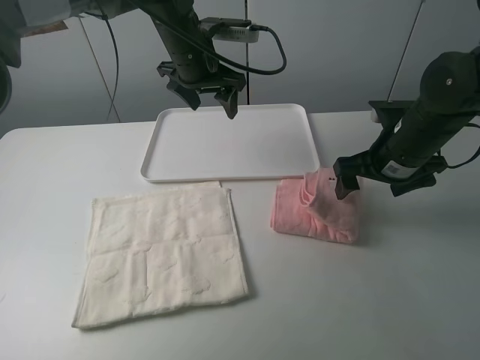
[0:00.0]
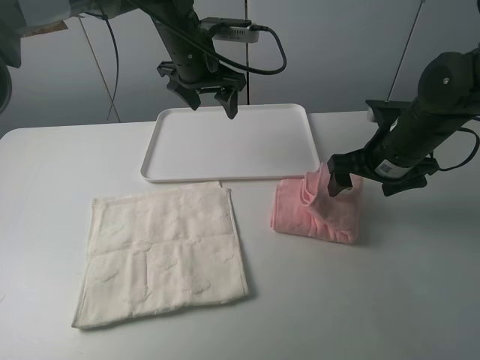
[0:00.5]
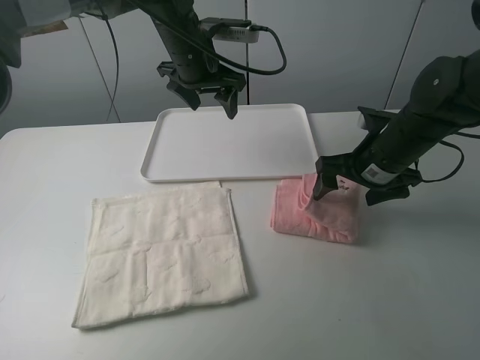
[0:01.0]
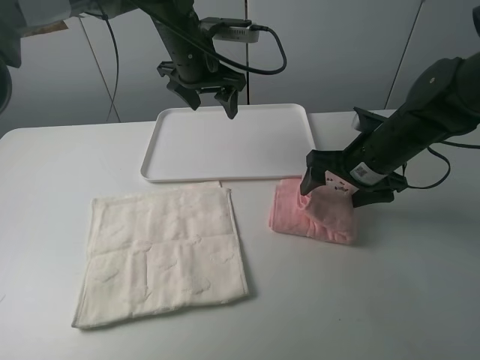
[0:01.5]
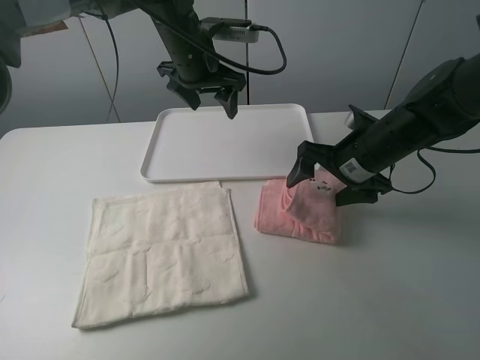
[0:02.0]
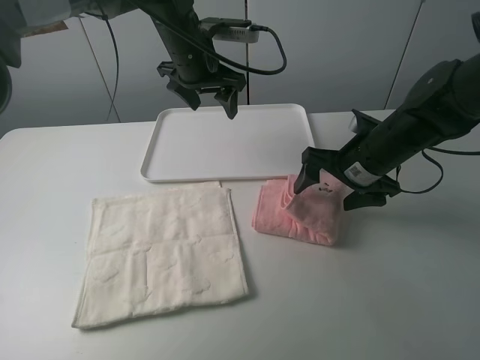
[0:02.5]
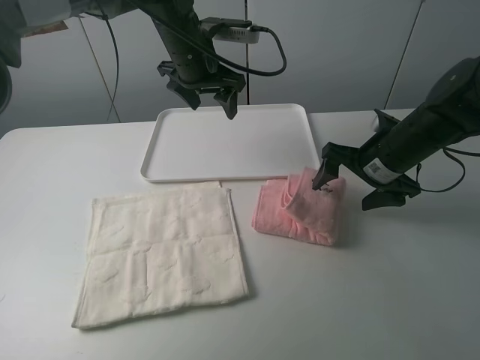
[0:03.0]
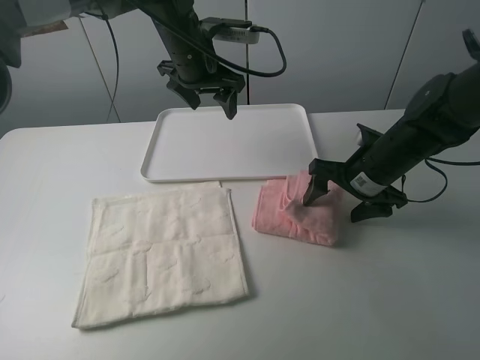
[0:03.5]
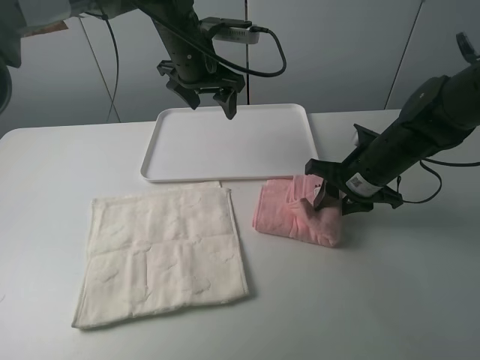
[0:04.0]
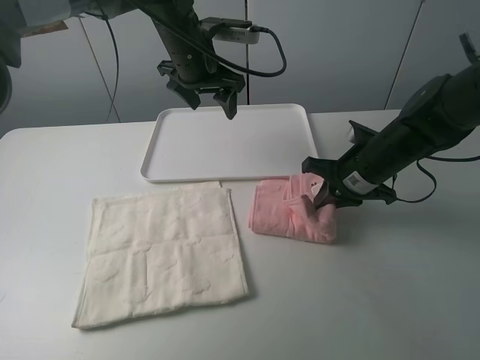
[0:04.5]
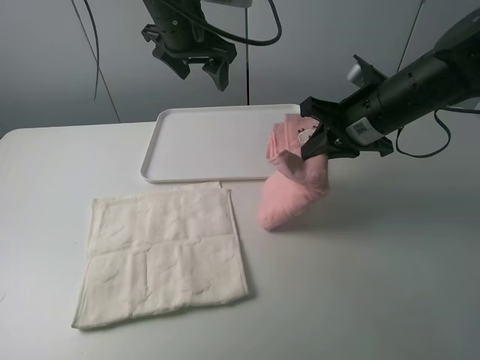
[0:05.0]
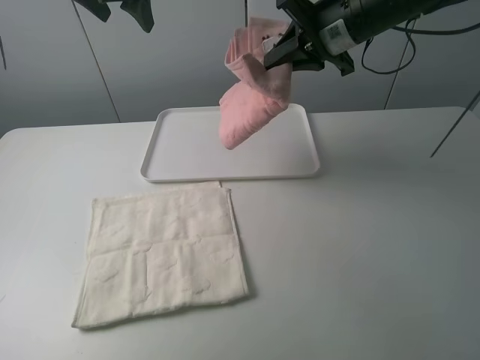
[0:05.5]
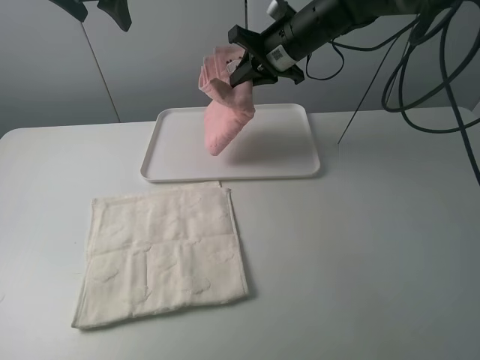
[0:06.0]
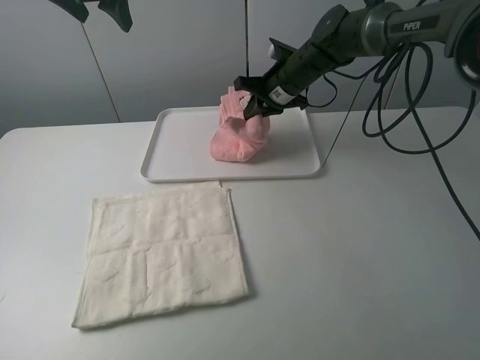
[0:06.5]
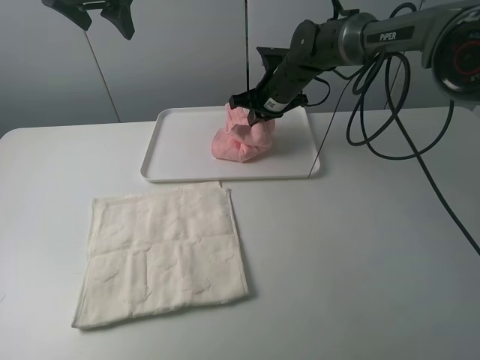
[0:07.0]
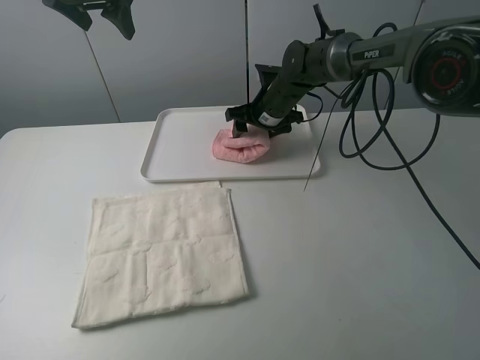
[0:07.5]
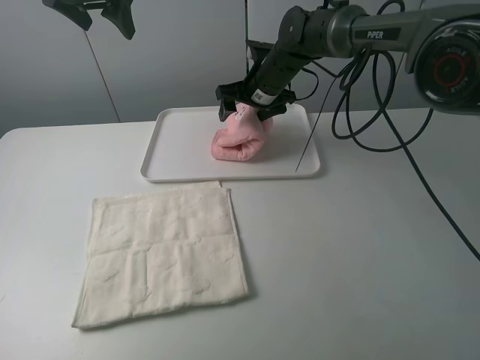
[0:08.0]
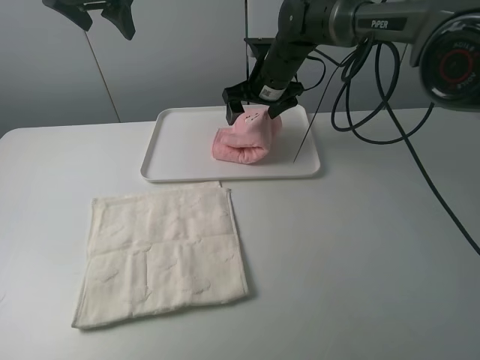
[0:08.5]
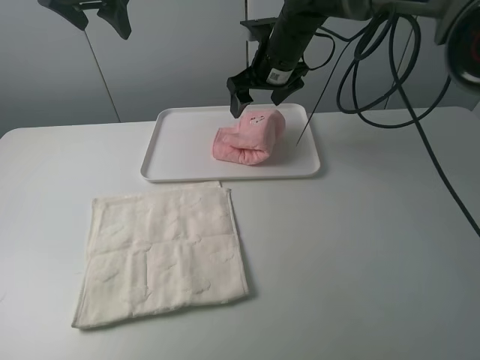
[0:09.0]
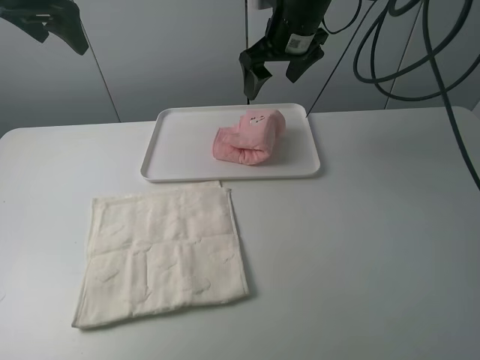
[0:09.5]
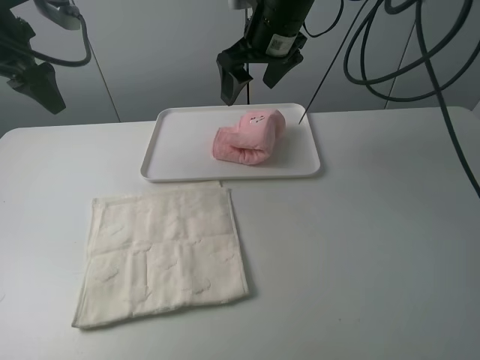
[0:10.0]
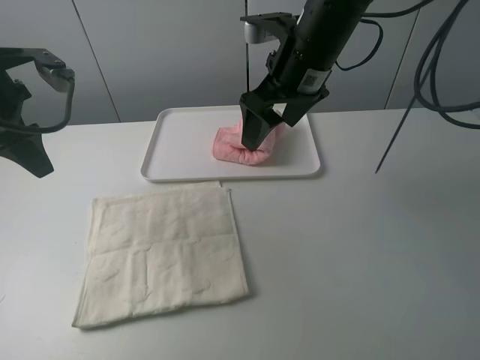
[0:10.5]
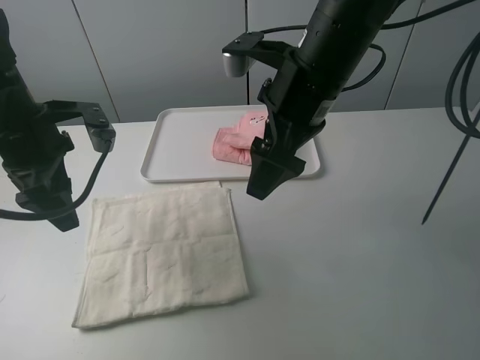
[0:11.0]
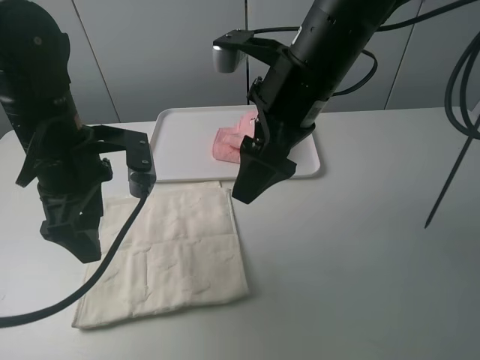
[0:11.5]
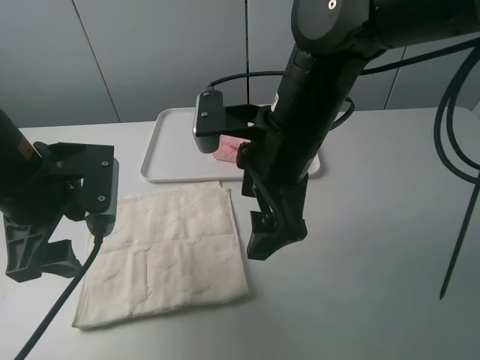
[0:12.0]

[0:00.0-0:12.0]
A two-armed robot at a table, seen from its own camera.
Task of the whole recording: fold one of the towels by two grippers and place it on the tray,then fold another towel by two grippers and place it on the folded towel.
Step, 0:00.0 to 0:02.5: Fold the pink towel from right to left with right gripper.
Step, 0:03.0 to 0:04.0: Grasp the pink towel with the right gripper.
Step, 0:04.5 to 0:08.5: Move the pink towel to the plate with the right gripper.
0:02.0 to 0:04.0: The right gripper closes.
0:04.0 to 0:06.0: The left gripper heads to the left and upward, covering roughly 20 cm; the right gripper heads forward, upward and to the left, covering roughly 20 cm.
0:06.0 to 0:08.0: The right gripper goes some 5 cm downward, and opens its fingers.
0:08.0 to 0:10.0: The right gripper travels upward and backward by roughly 15 cm. The left gripper travels to the left and backward by approximately 10 cm.
0:10.0 to 0:12.0: The left gripper heads backward, to the right and downward, covering approximately 20 cm, while the right gripper moves backward, about 20 cm.

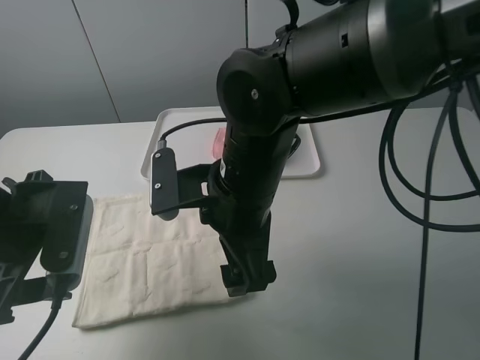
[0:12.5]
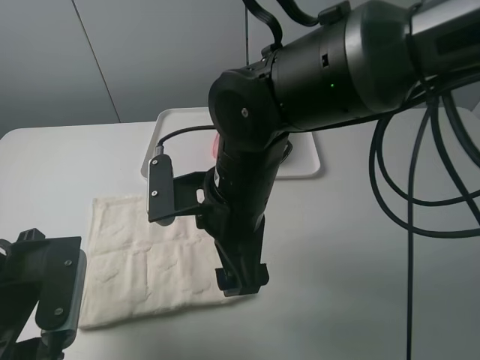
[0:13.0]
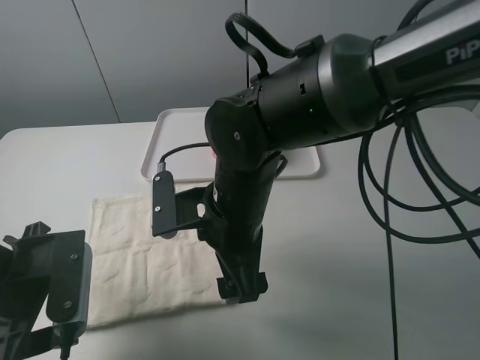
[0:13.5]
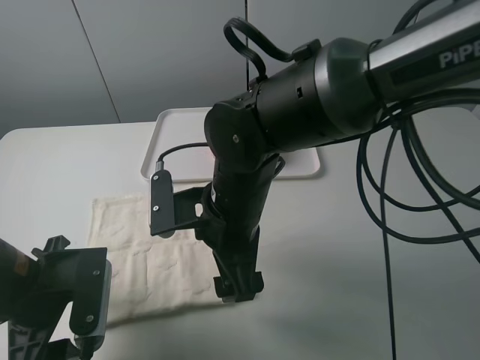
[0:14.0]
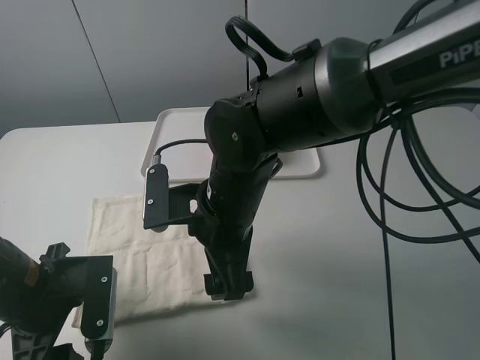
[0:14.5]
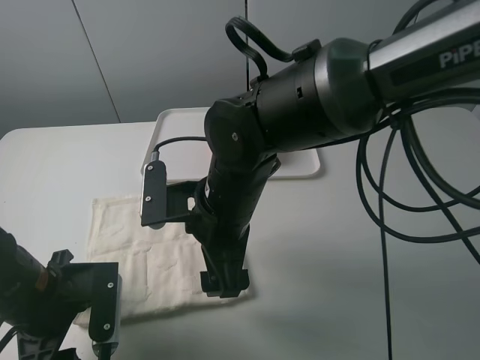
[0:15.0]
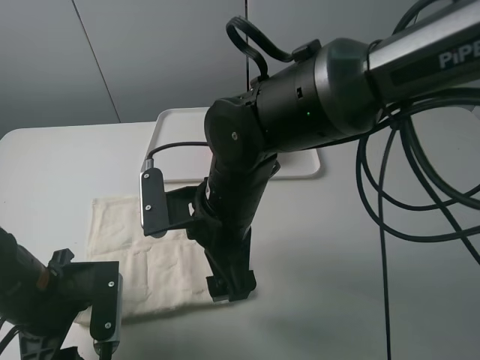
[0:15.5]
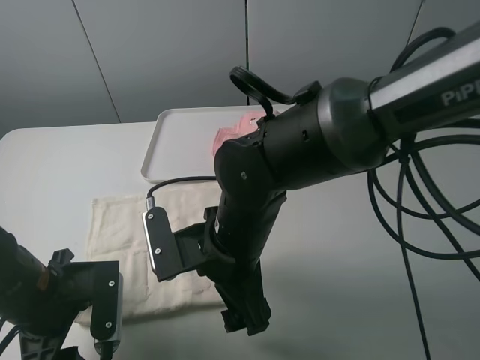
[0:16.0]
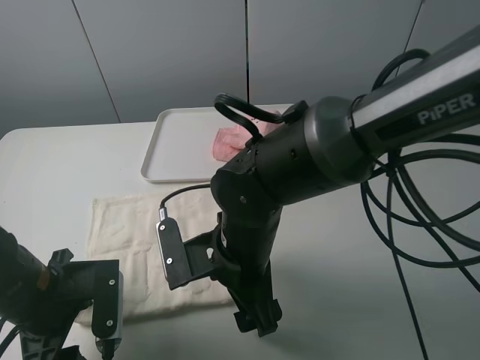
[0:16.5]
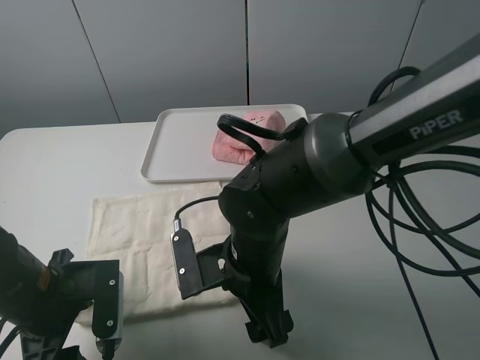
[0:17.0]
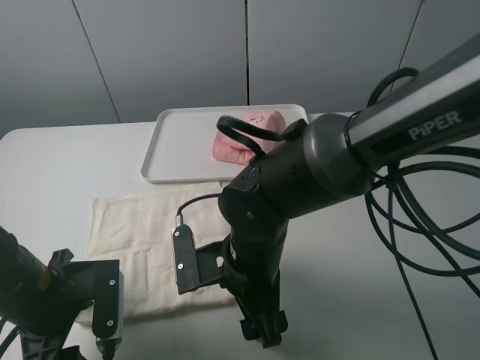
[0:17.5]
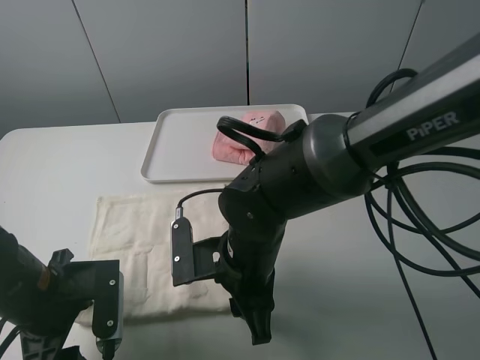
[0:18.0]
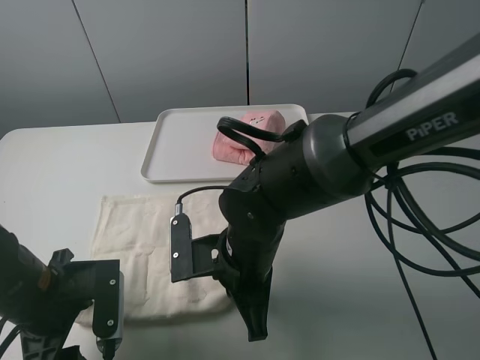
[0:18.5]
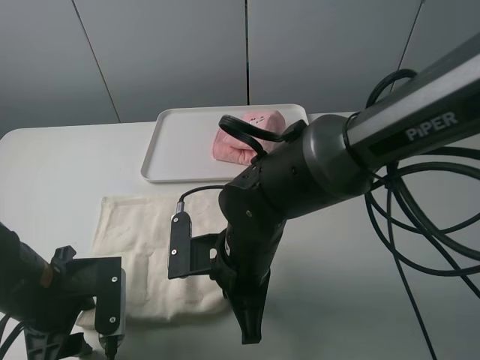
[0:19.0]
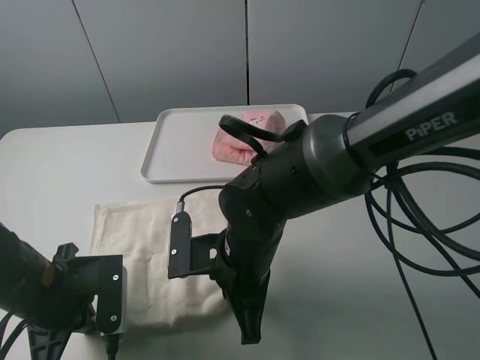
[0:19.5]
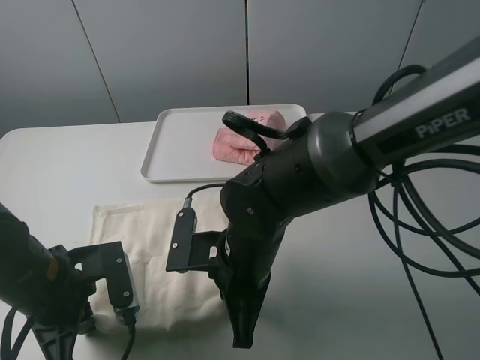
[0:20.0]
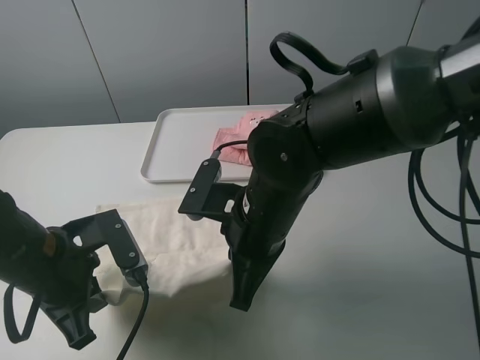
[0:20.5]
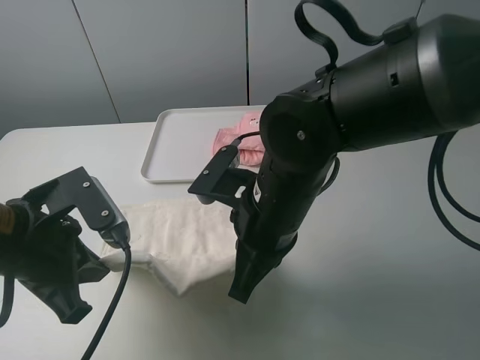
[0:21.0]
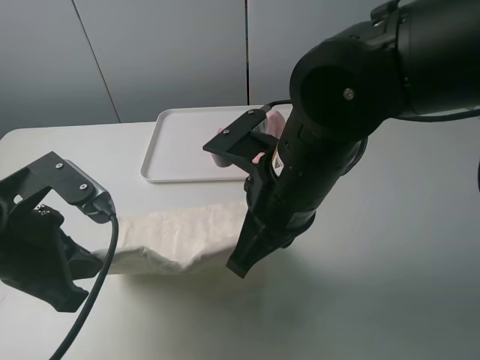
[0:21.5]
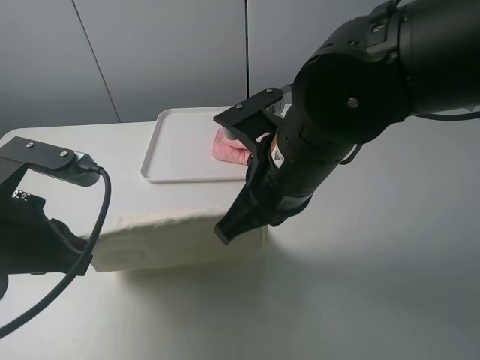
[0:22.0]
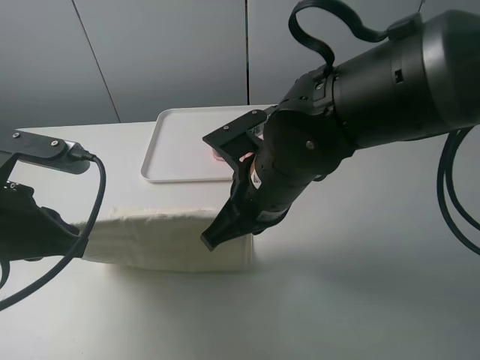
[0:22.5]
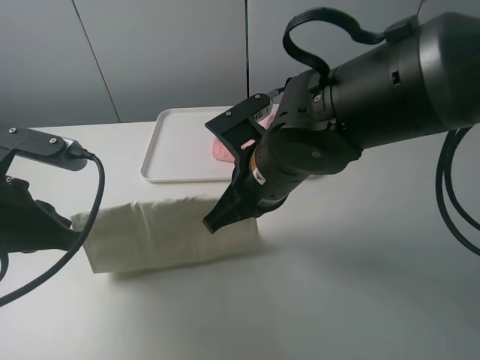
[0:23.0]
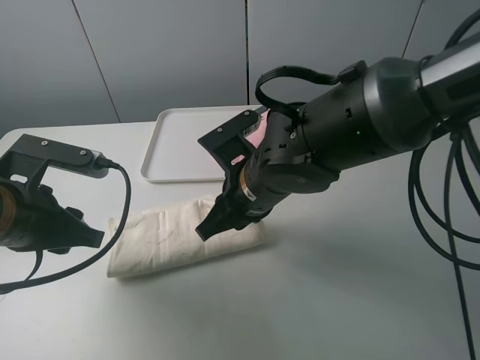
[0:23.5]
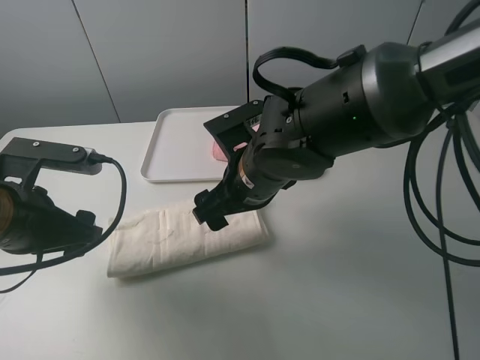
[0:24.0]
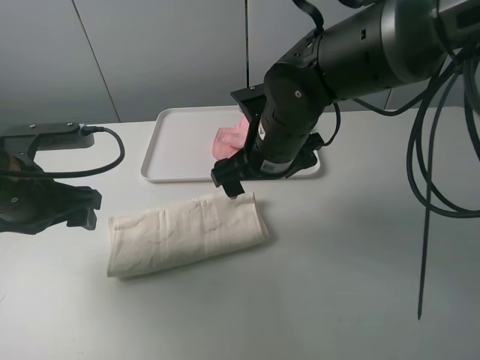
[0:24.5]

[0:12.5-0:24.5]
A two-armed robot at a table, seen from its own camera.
Task of the whole recording: fold one of the towels by two grippers and place it on the tray,then fold another towel by two grippers and place it on the folded towel.
Step, 0:12.5 to 0:19.5: Grasp the white towel with the left gripper.
Step, 0:20.0 to 0:23.5: Fold the white towel upwards with the left gripper.
0:12.5 to 0:14.5: The left gripper heads downward, covering about 10 cm.
0:16.5 to 0:18.5: The right gripper closes its fingers.
0:18.5 to 0:20.5: The right gripper is displaced upward by about 5 cm; the left gripper closes its fingers.
0:20.5 to 0:22.5: The left gripper shifts about 10 cm upward.
0:22.5 to 0:24.5: Both grippers move forward, approximately 5 cm. The left gripper opens up; the right gripper opens its fingers.

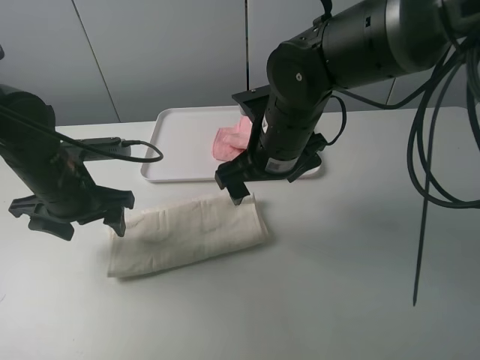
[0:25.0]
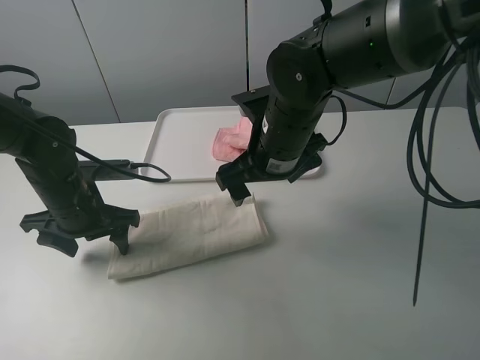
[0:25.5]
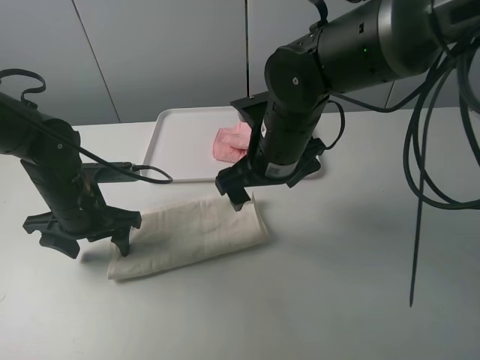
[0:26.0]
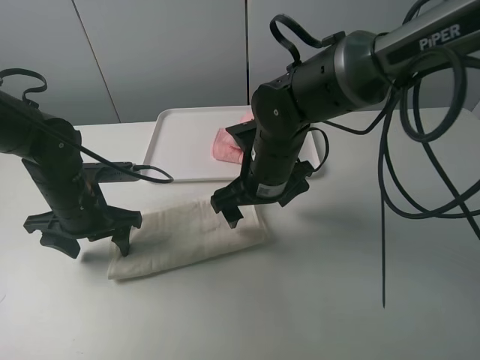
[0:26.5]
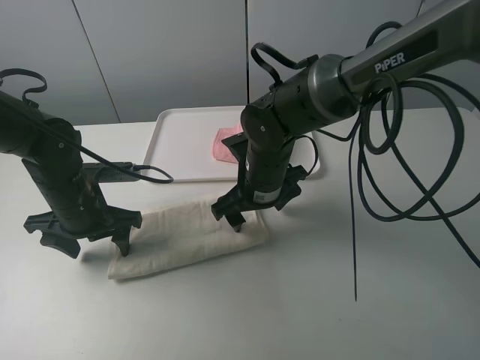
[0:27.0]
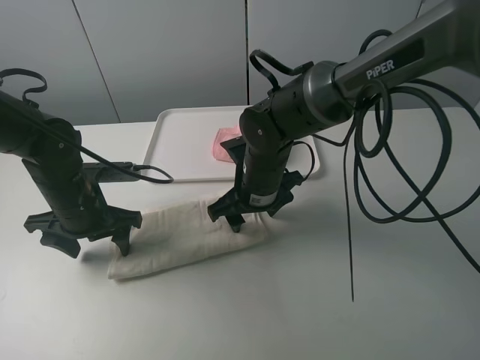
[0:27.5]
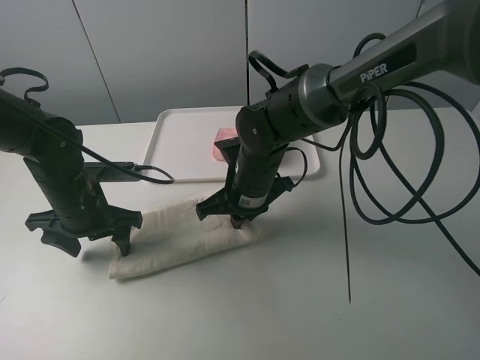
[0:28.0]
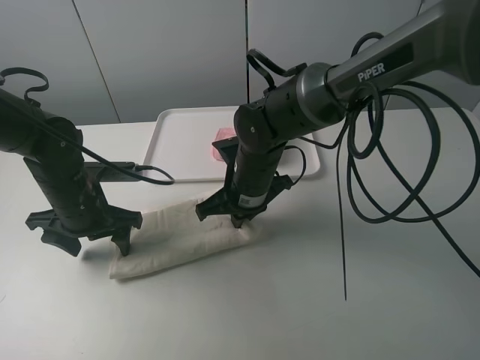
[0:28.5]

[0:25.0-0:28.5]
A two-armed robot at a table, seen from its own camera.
Task of the whole recording: fold one of the towels by two grippers and place it on the tray,then fold another towel by two grippers and place it on the folded towel.
Step, 0:26.0 to 0:28.5: Grasp the white towel with the right gripper.
0:25.0 to 0:27.0: The right gripper heads downward, covering approximately 10 cm.
0:27.0 to 0:28.5: The right gripper closes.
